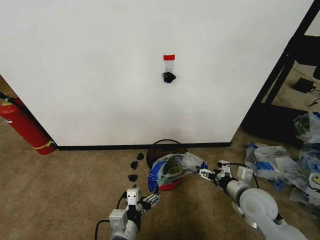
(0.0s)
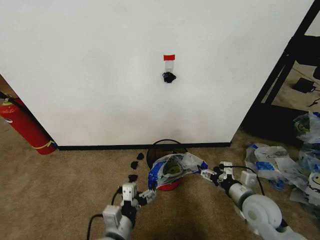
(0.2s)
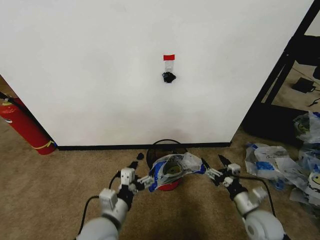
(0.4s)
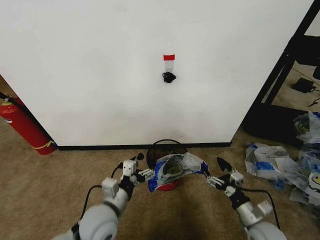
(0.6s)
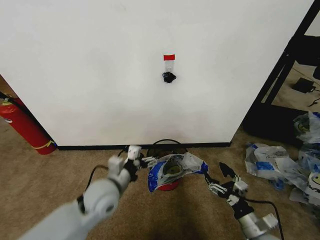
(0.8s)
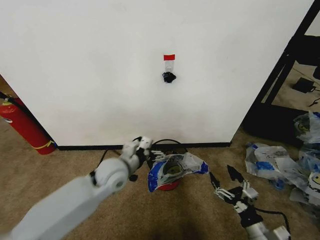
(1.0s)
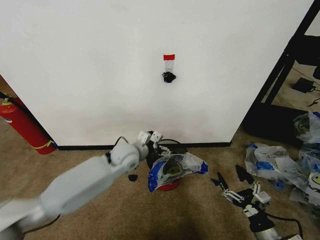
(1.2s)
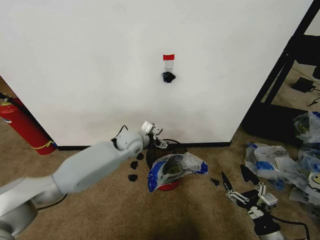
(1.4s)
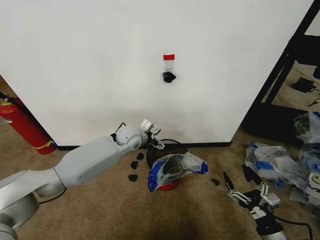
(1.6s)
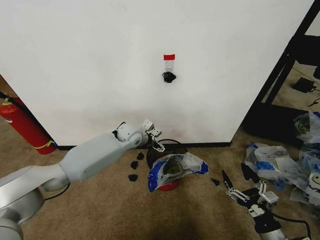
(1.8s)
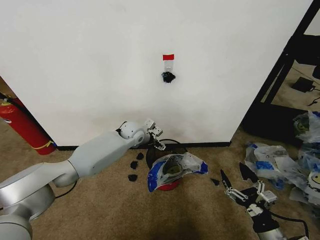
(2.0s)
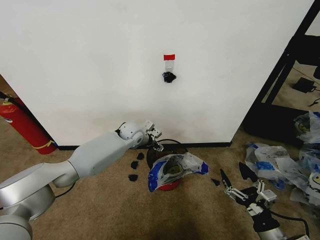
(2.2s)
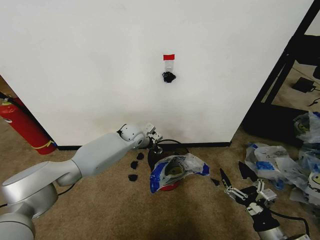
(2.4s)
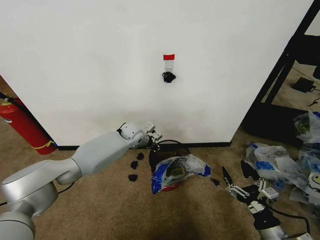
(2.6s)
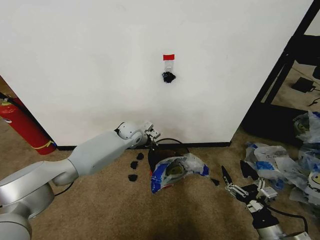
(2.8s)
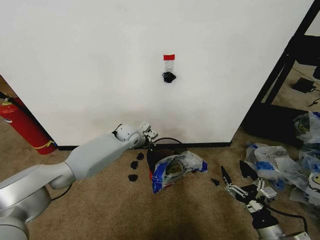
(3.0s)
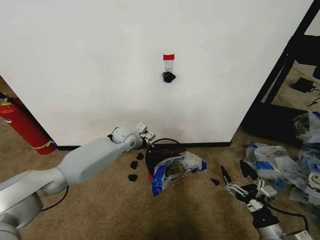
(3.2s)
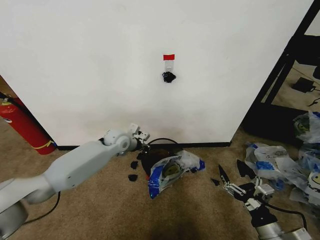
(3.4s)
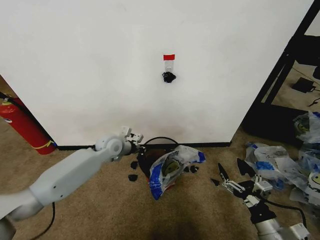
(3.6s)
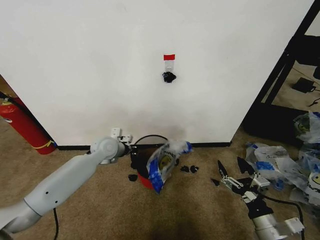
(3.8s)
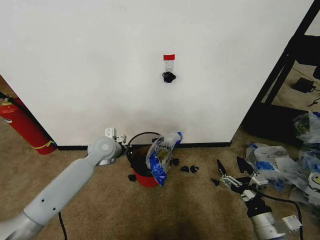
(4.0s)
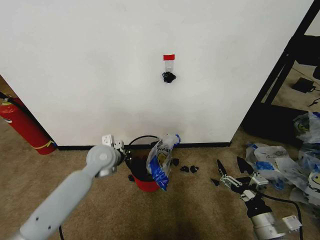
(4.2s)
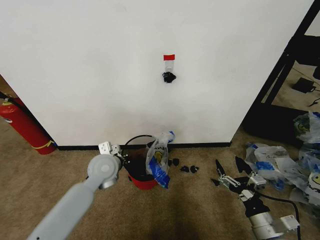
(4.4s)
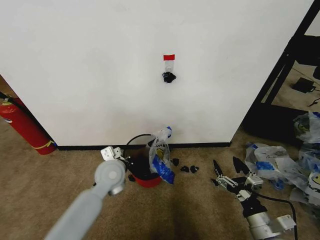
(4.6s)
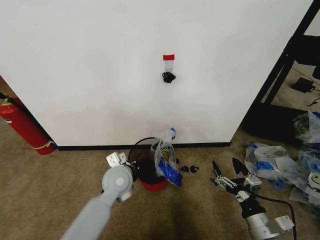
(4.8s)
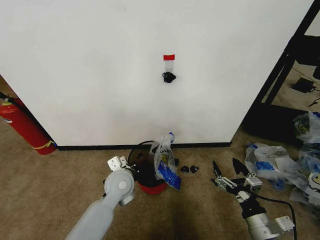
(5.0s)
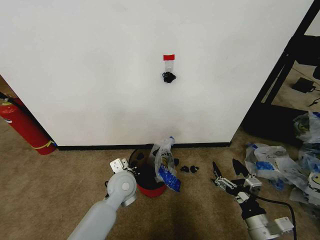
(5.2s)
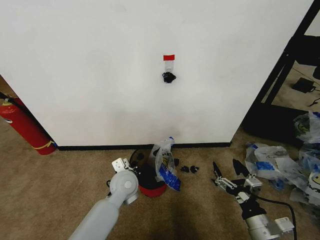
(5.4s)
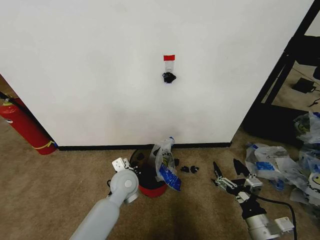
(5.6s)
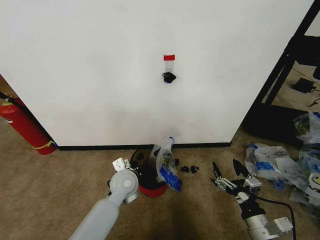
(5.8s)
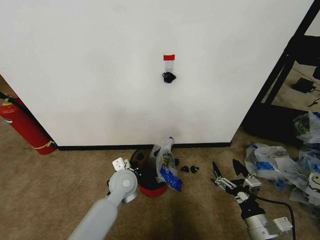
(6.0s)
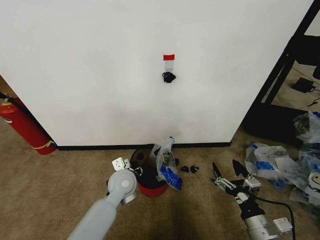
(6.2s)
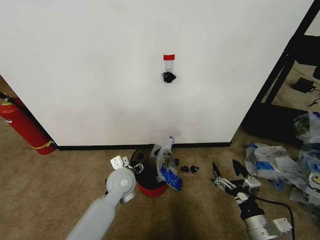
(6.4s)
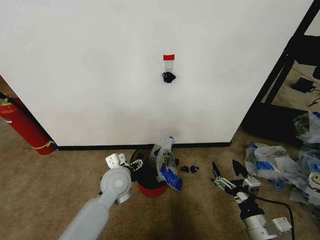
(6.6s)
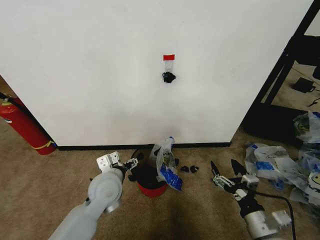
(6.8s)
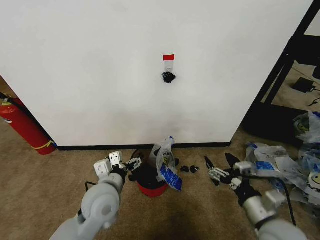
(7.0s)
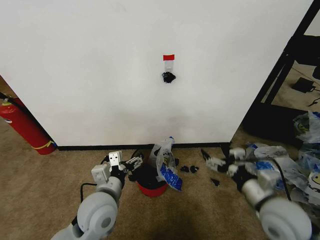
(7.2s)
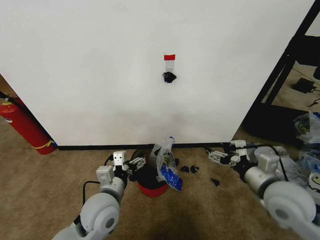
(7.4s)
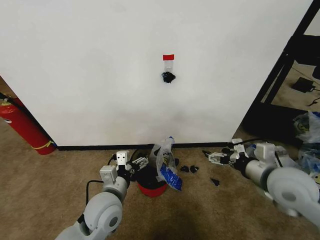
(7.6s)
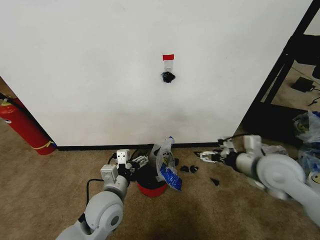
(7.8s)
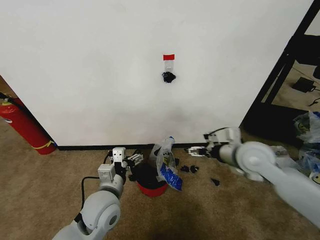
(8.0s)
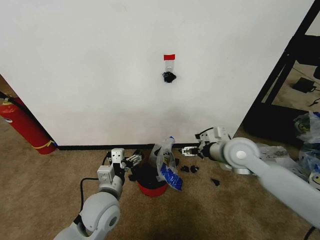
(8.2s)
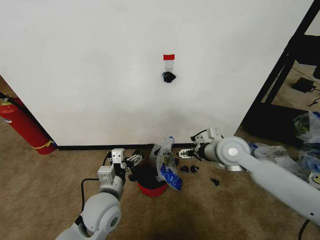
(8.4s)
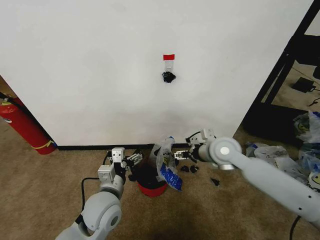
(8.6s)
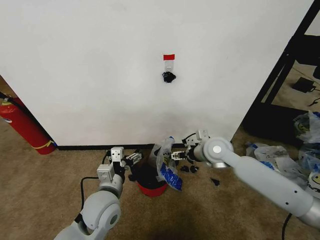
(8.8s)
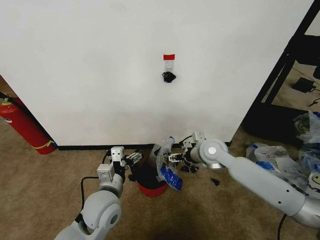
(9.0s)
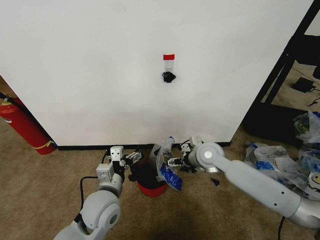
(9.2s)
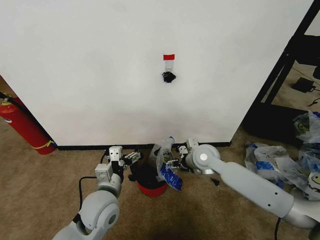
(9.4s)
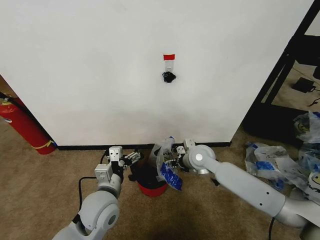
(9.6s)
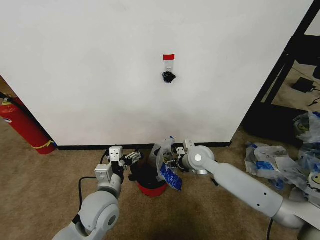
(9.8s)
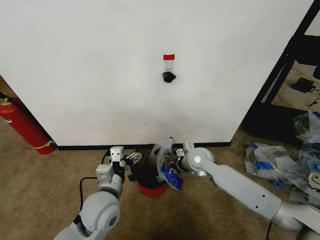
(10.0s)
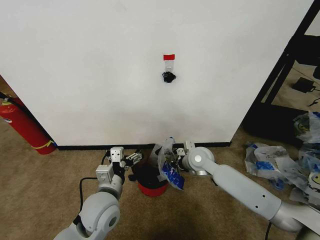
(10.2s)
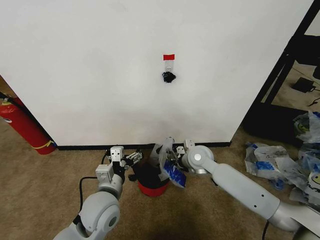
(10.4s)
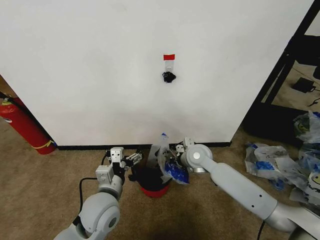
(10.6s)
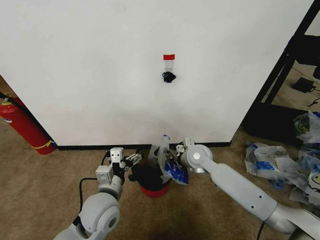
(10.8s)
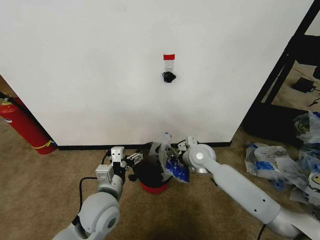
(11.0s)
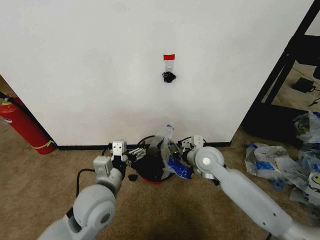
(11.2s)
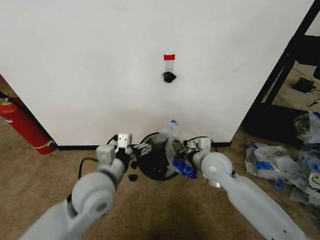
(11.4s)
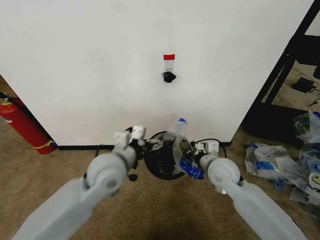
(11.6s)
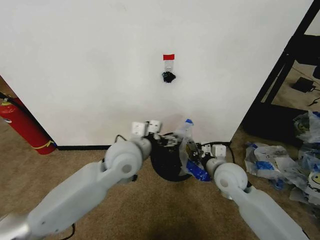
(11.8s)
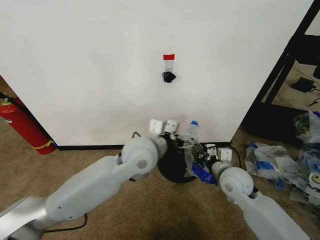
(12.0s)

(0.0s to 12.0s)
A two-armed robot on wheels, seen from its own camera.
Task of the whole recording: Pick up the garbage bag from the wall and place it over the trash bin.
0.0s - 1.6s: The left gripper moves forward, about 35 cm; the right gripper goes roughly 15 cm backward.
1.6s - 3.0s: The left gripper ends up about 5 cm from where it was, and closes up.
3.0s - 4.4s: The left gripper goes about 20 cm backward.
4.4s - 6.0s: The left gripper travels to the right and downward by about 10 cm.
6.0s - 7.6s: The right gripper travels upward and forward by about 20 cm. Meanwhile the left gripper shifts about 10 cm backward, and opens.
7.6s - 9.0s: The right gripper moves forward and to the left, roughly 20 cm.
9.0s - 10.4s: The right gripper shifts about 5 cm downward, and closes its fingers.
10.4s - 12.0s: The left gripper heads upward, forward and to the right, covering roughly 20 cm. Meanwhile the right gripper moves backward and to the right, about 15 cm.

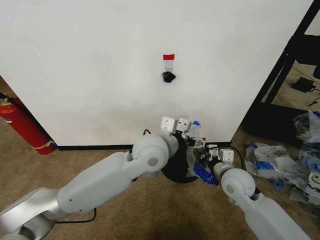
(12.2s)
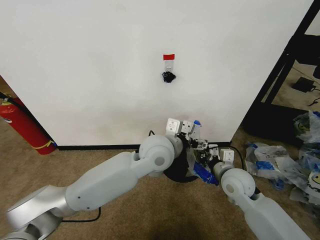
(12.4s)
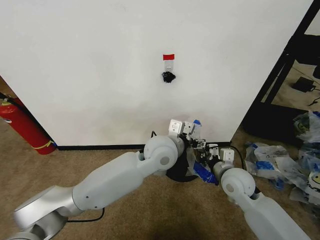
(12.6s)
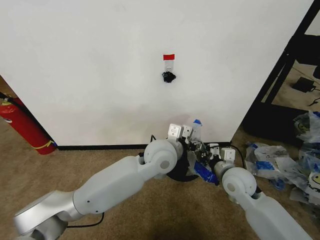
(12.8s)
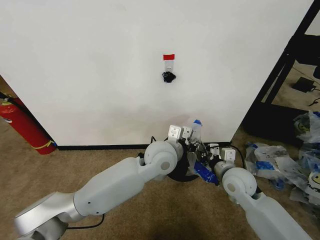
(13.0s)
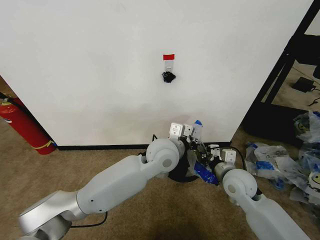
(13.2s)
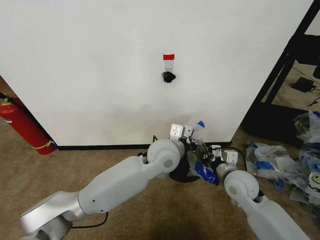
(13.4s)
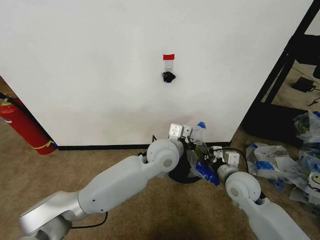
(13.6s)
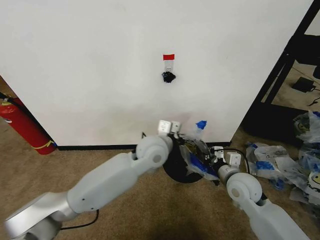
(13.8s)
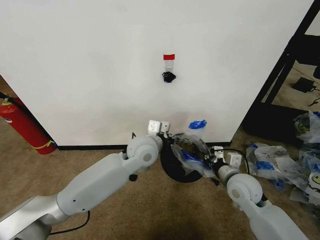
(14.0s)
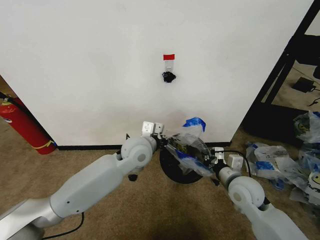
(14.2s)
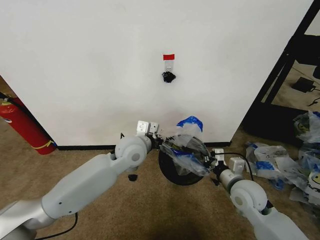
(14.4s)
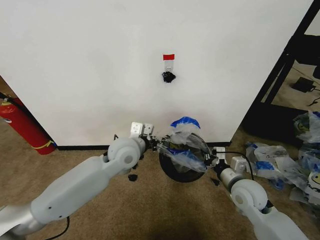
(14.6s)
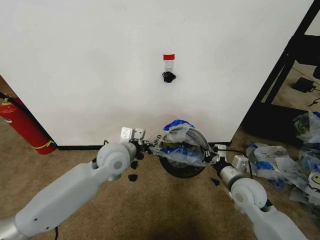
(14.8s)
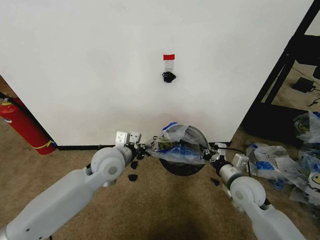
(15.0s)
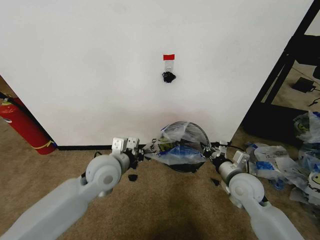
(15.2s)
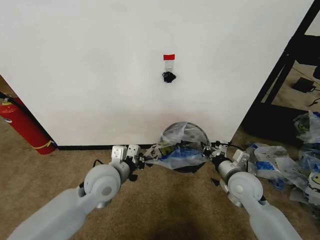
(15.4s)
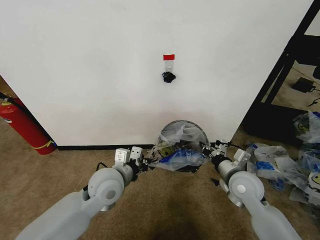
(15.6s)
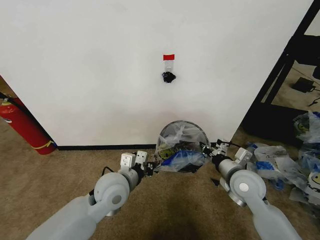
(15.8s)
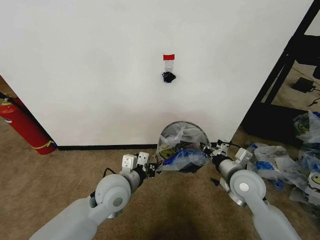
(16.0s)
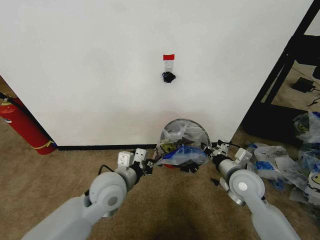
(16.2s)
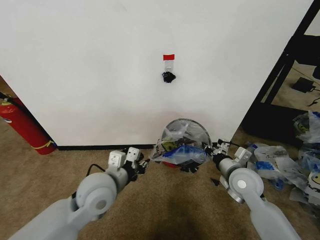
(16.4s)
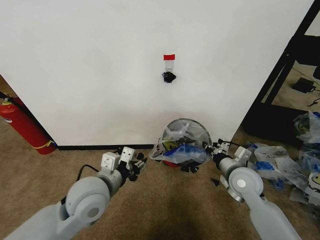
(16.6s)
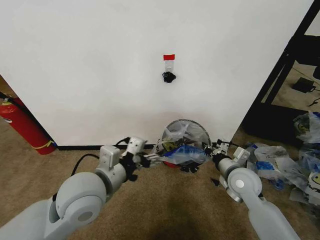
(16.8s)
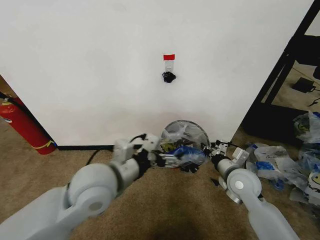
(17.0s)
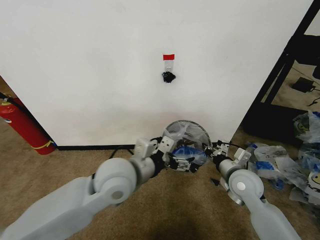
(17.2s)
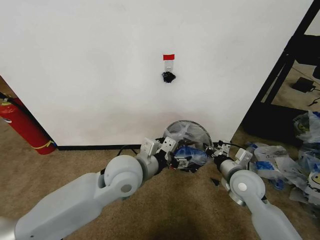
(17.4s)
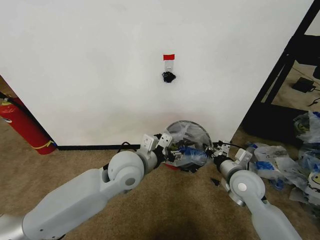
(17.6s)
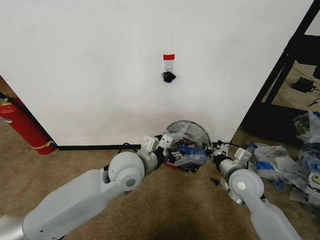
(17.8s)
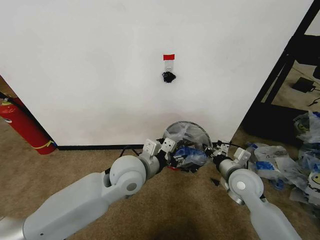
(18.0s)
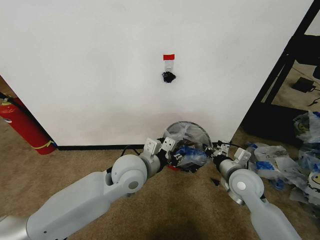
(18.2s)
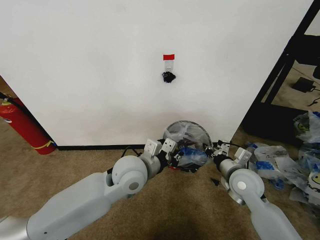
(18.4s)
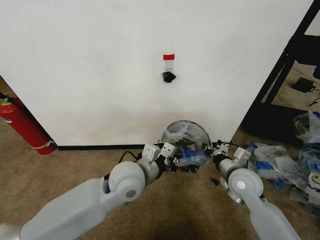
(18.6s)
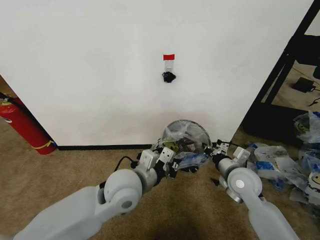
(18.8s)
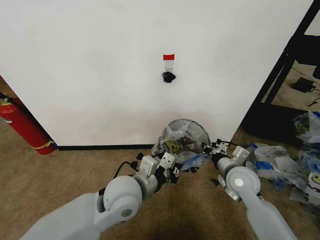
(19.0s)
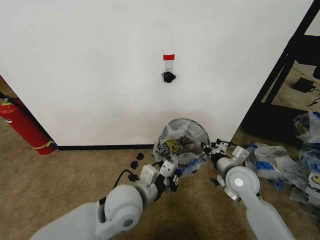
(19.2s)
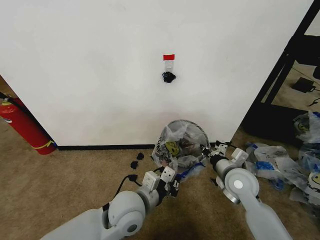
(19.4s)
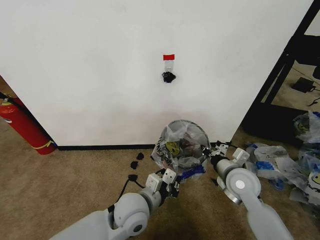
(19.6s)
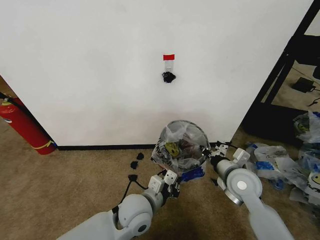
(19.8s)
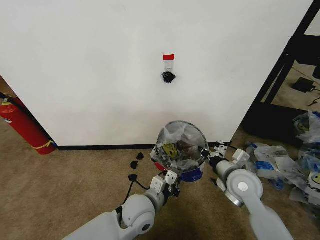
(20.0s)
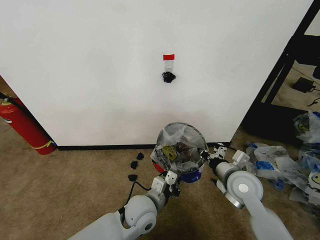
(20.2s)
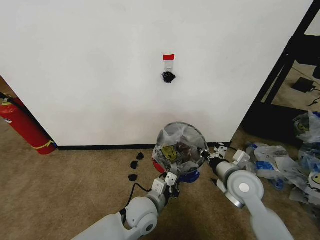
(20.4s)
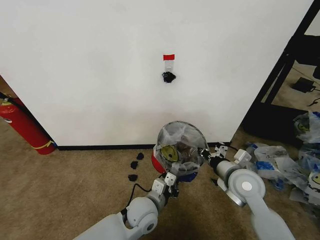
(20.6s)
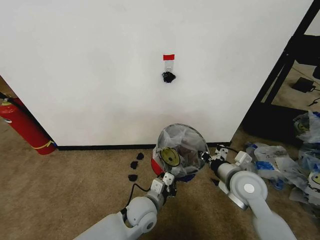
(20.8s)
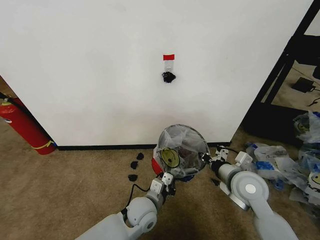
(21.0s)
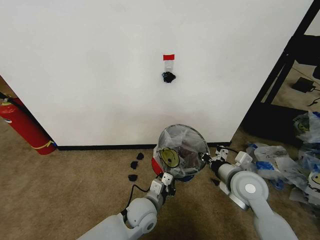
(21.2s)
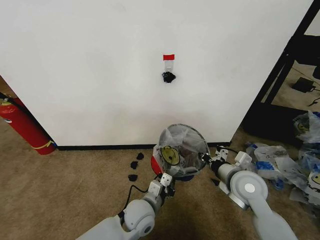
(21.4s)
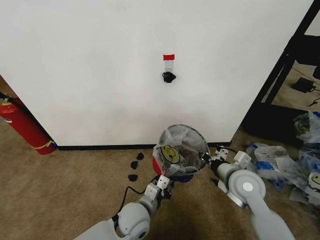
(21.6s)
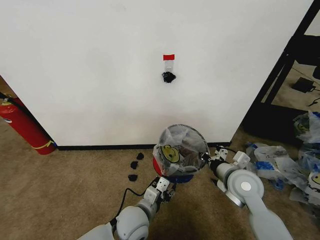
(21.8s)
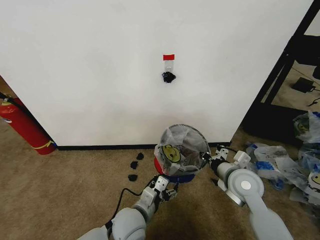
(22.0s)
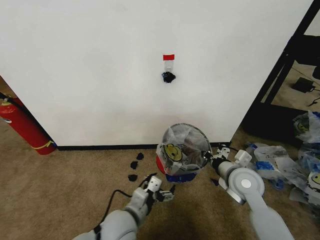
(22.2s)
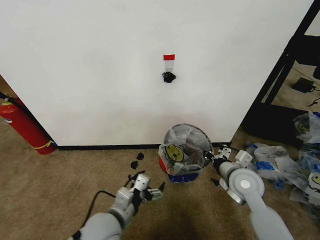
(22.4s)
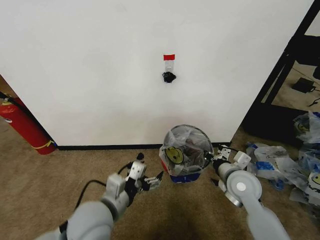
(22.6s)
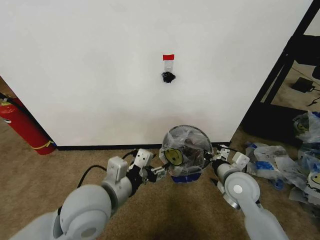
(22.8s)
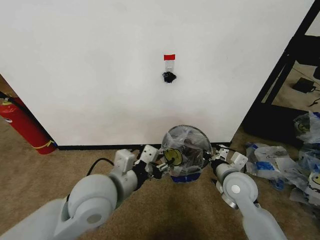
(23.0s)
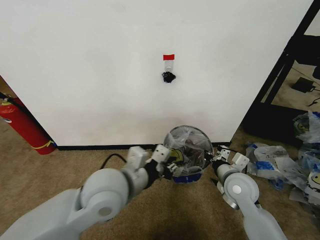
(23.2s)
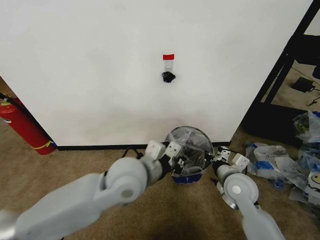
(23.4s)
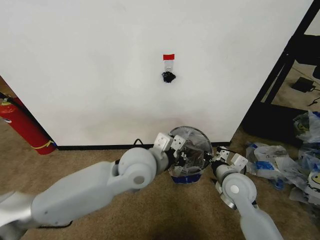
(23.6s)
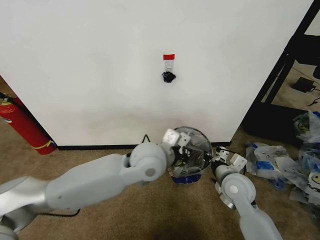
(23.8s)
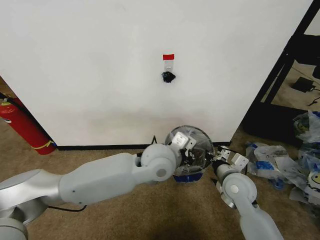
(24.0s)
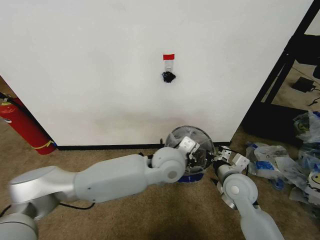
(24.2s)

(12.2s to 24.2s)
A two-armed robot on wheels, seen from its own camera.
Task of the whole recording: Pick up the garbage bag from the wall and place it over the trash bin.
12.2s - 13.8s: The left gripper moves roughly 5 cm, and closes.
13.8s - 15.2s: The left gripper travels to the left by roughly 15 cm.
15.2s - 16.6s: The left gripper is displaced backward by roughly 10 cm, and opens its fingers.
16.6s - 18.2s: The left gripper heads to the right and forward, covering approximately 10 cm, and opens, then closes once more.
18.2s - 19.8s: The left gripper heads downward and backward, covering about 15 cm, and closes its fingers.
19.8s - 21.2s: The left gripper goes some 5 cm downward.
21.2s - 22.6s: The left gripper travels upward, to the left and backward by approximately 20 cm, and opens its fingers.
22.6s - 24.2s: The left gripper moves to the right and forward, some 25 cm, and closes.
